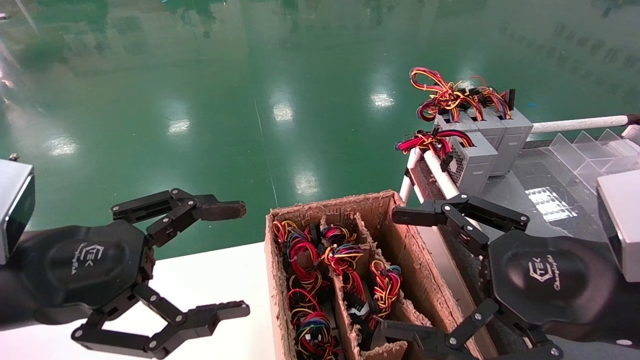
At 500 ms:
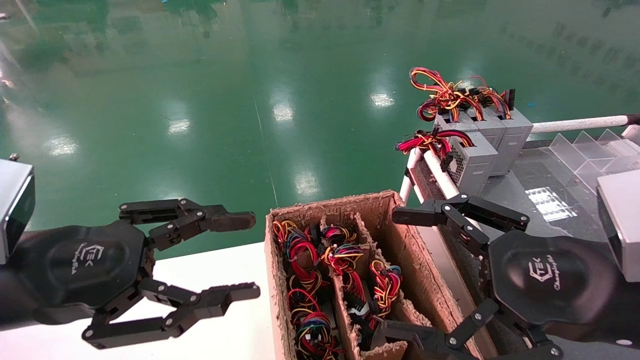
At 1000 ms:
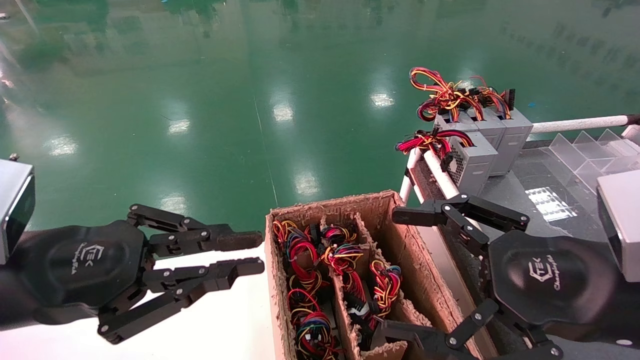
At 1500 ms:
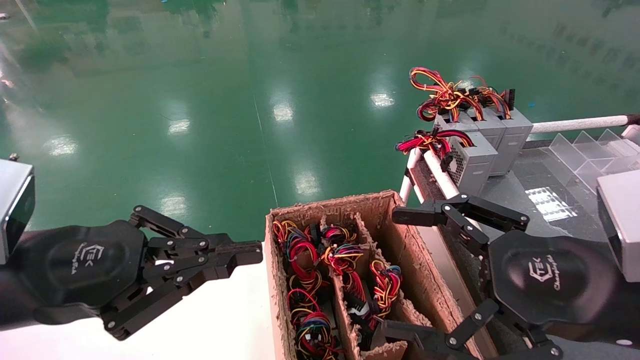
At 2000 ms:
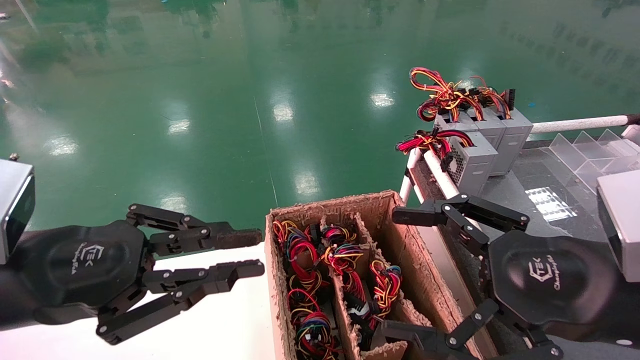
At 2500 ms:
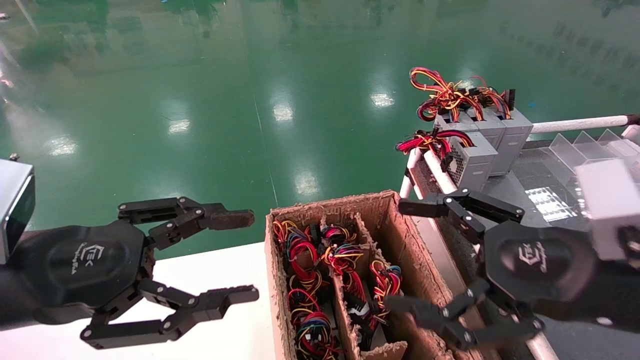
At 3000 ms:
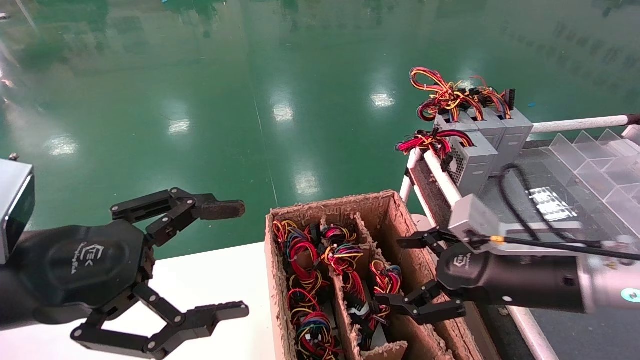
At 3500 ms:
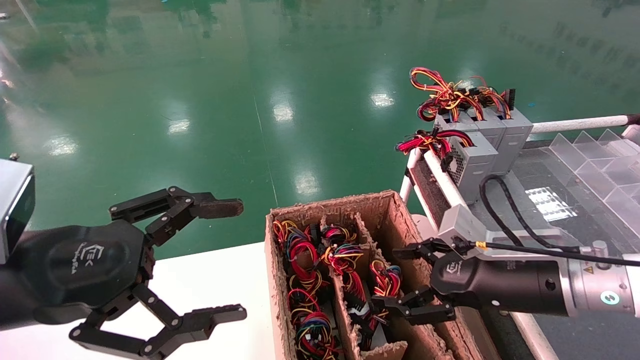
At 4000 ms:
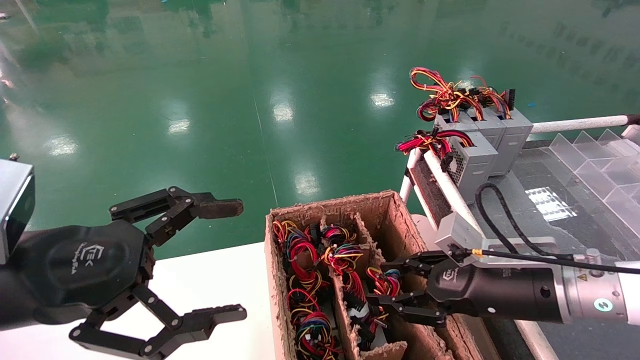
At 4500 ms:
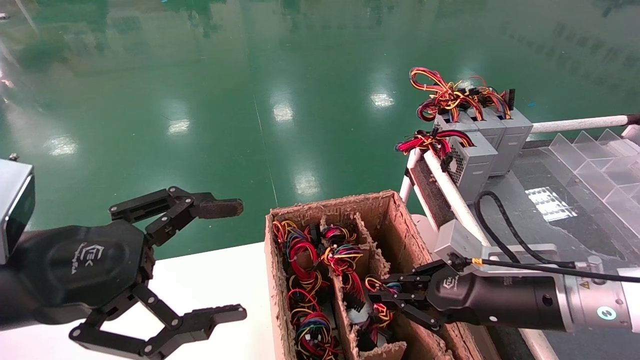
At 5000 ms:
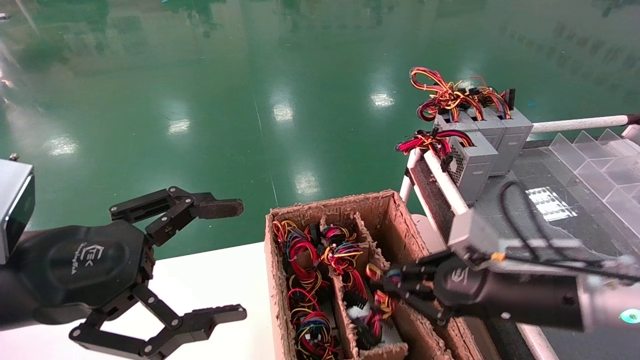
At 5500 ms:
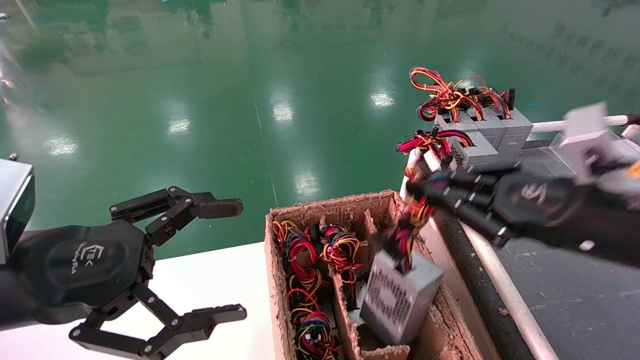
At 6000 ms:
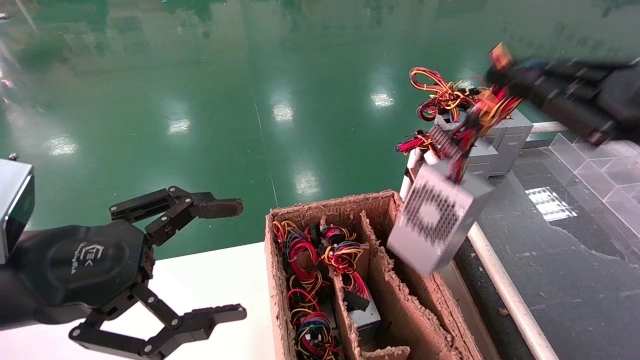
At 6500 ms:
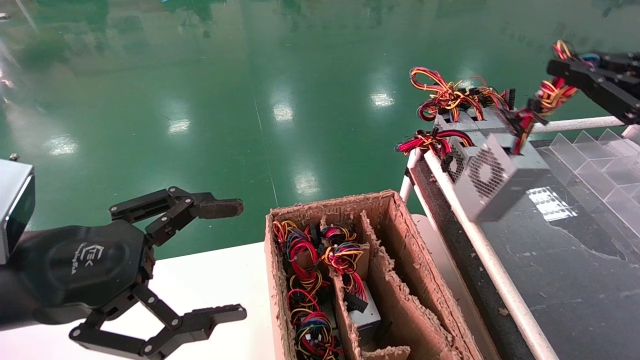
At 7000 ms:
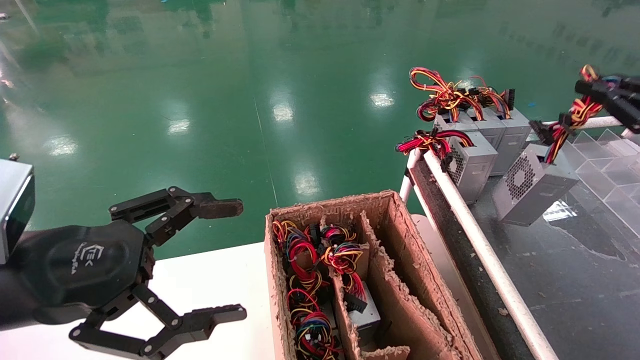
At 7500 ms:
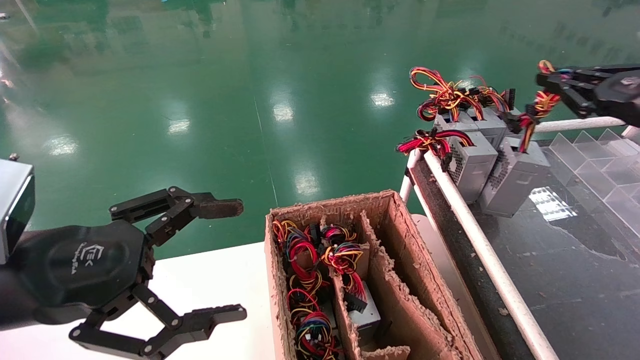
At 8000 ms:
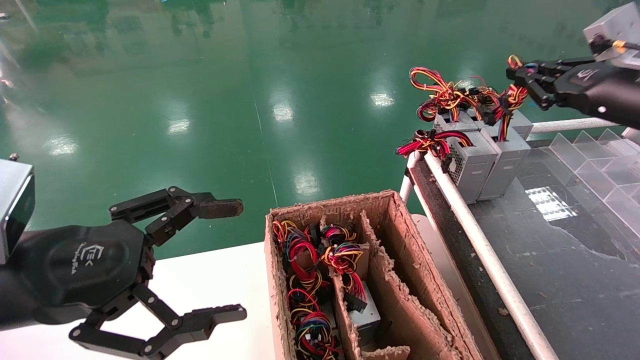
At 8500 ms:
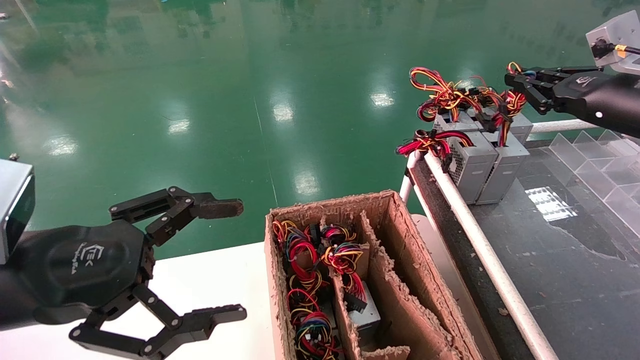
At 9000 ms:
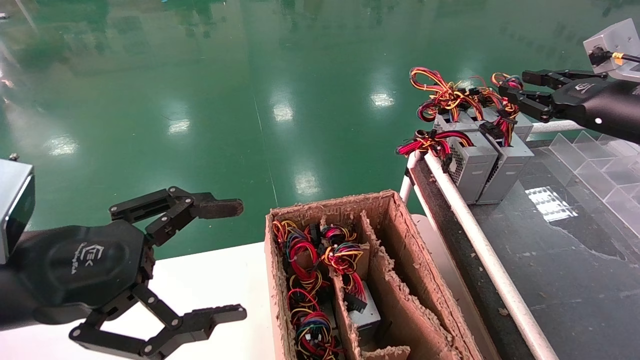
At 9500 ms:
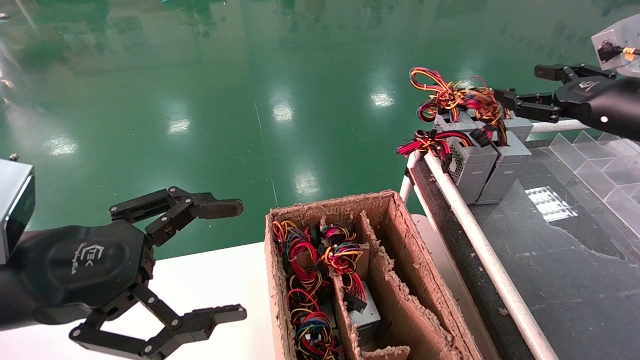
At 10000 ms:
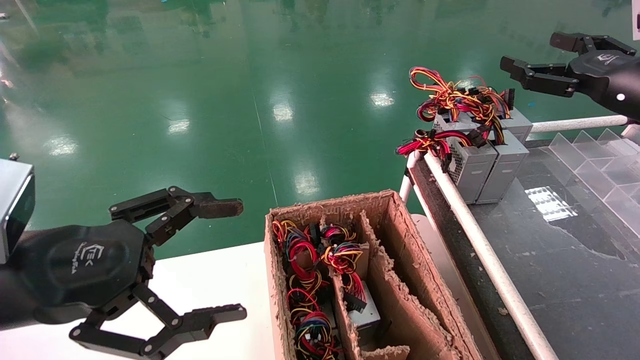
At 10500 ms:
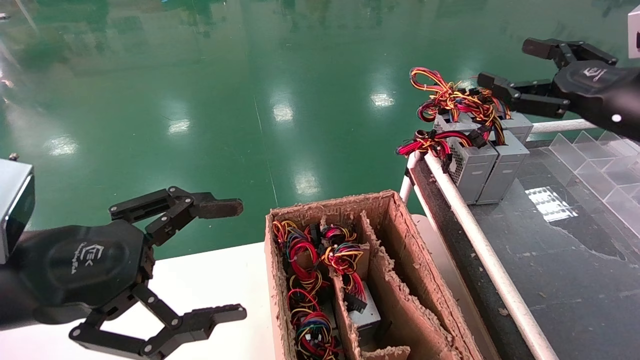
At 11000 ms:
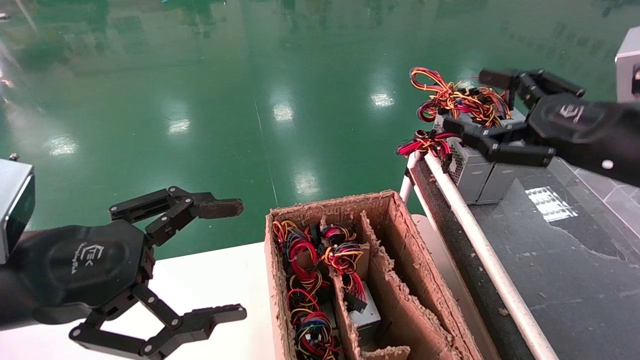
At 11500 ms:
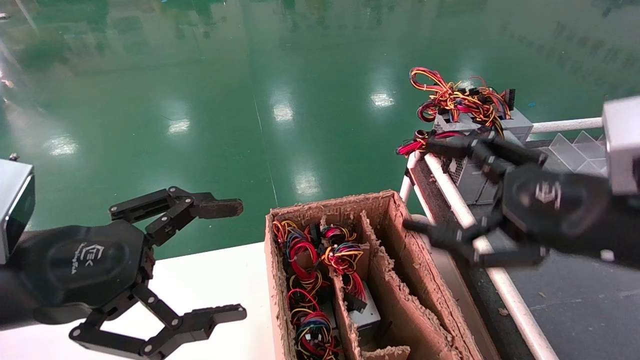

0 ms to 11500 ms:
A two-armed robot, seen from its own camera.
Step, 1500 ms to 4500 ms: Grab and lift the power supply from the large box.
Step, 5000 ms to 8500 ms: Place the power supply on the operating table.
0 ms to 2000 ms: The left gripper closes its fingers.
2000 ms to 4000 ms: The left gripper opens, while the right gripper heads forward and downward, covering about 15 cm, and closes.
4000 ms to 6000 ms: The right gripper moves upward, to the right and backward, approximately 20 cm, and closes its fingers.
6000 ms to 7500 ms: The right gripper shifts about 15 cm forward and to the right.
7500 ms to 9500 ms: The right gripper opens up.
9500 ms to 11500 ms: The right gripper heads backward, to the left and downward, covering approximately 20 cm.
